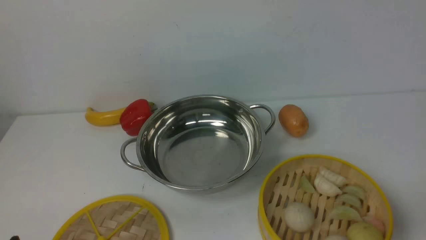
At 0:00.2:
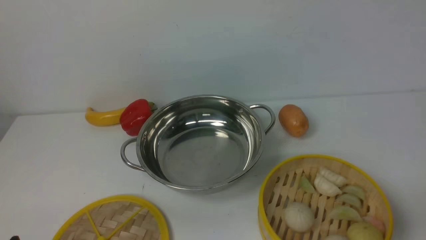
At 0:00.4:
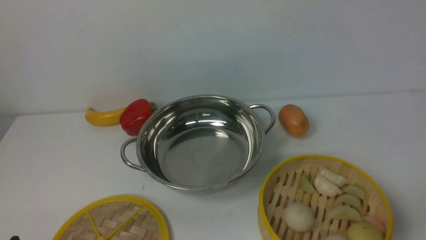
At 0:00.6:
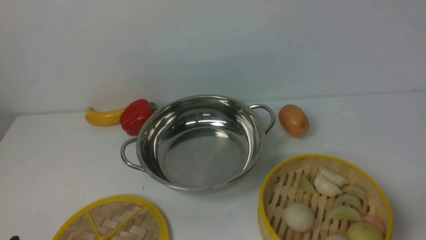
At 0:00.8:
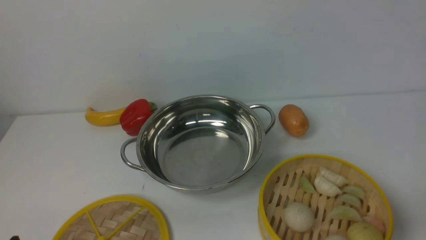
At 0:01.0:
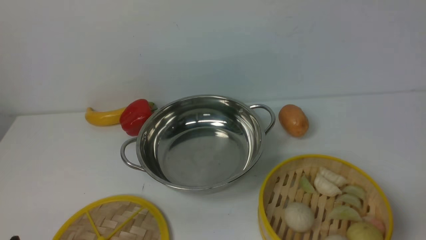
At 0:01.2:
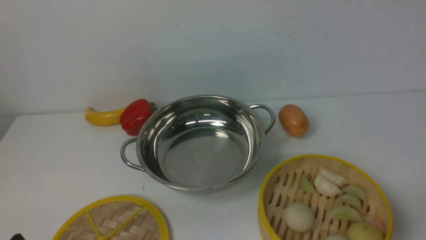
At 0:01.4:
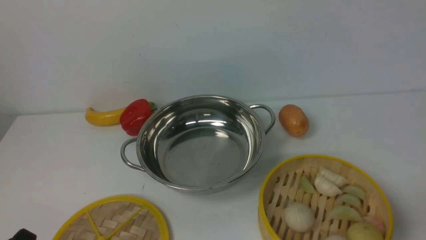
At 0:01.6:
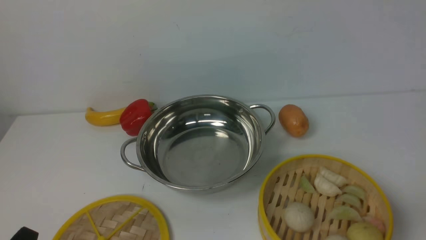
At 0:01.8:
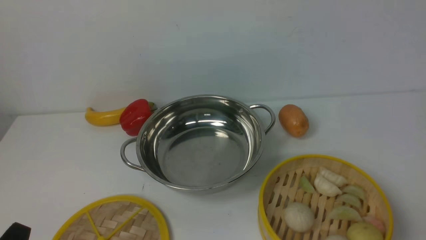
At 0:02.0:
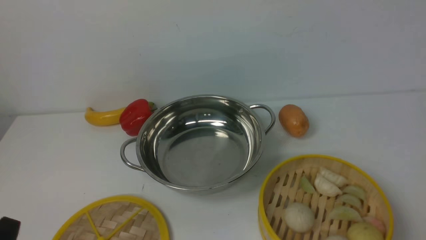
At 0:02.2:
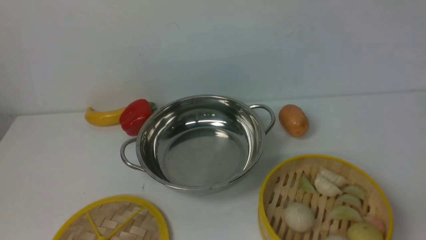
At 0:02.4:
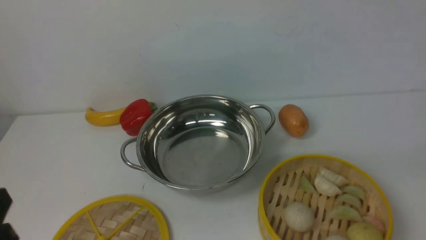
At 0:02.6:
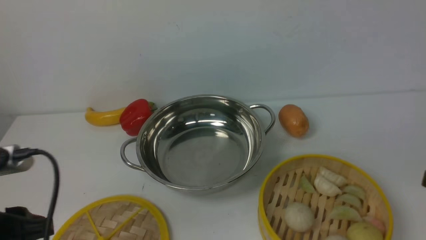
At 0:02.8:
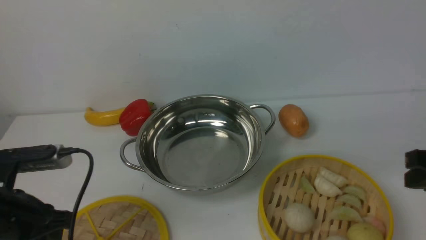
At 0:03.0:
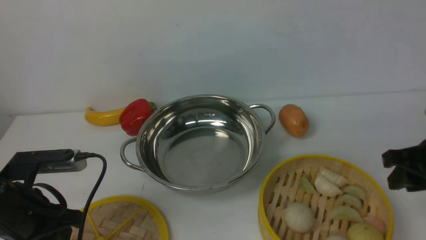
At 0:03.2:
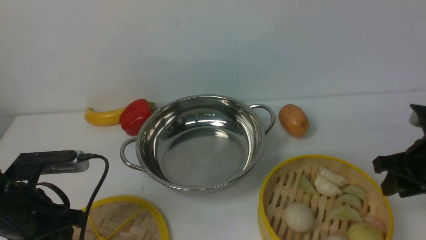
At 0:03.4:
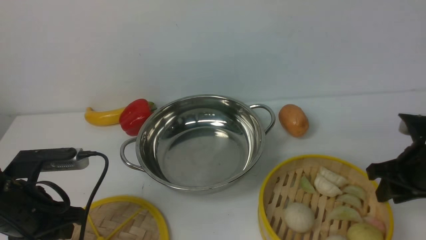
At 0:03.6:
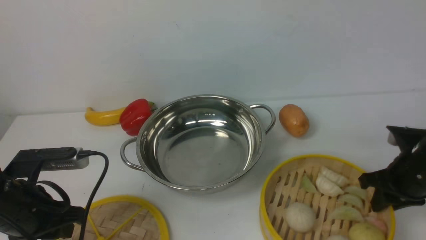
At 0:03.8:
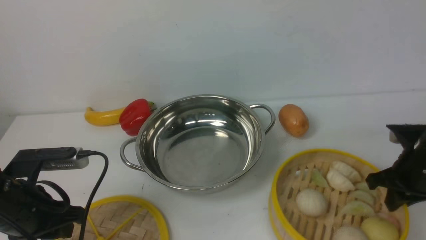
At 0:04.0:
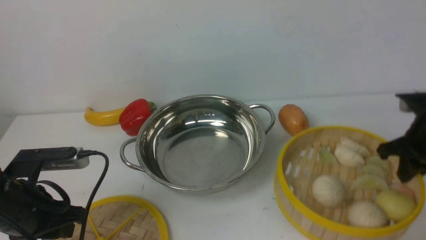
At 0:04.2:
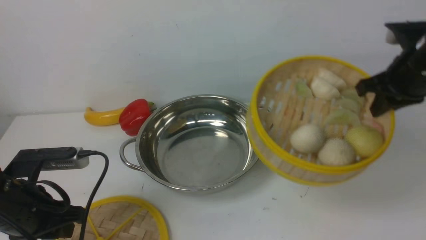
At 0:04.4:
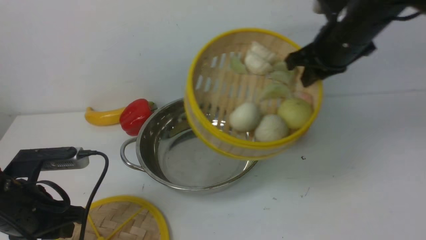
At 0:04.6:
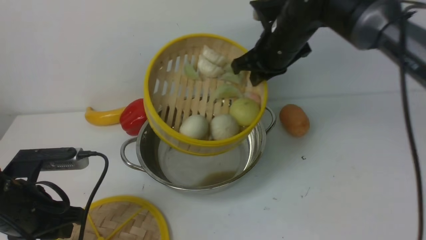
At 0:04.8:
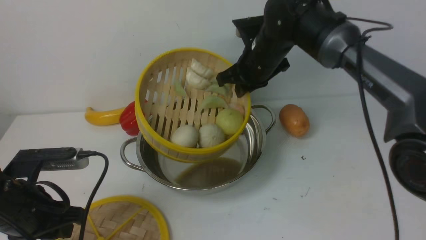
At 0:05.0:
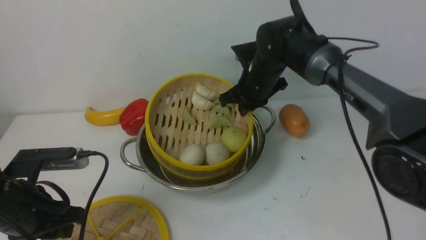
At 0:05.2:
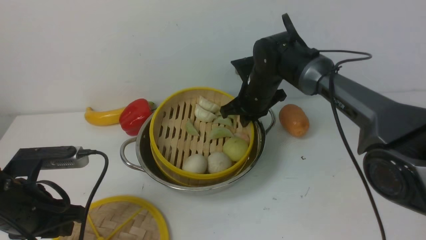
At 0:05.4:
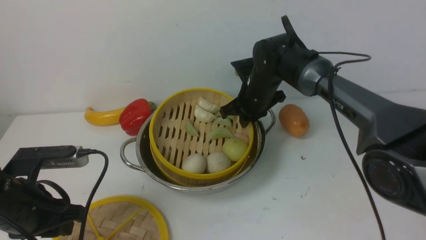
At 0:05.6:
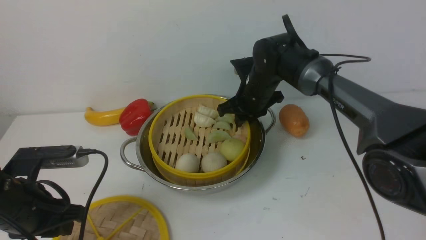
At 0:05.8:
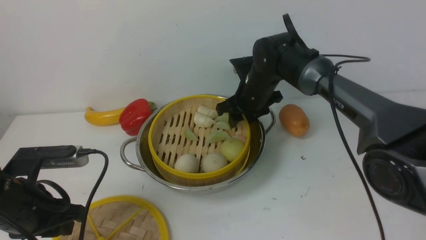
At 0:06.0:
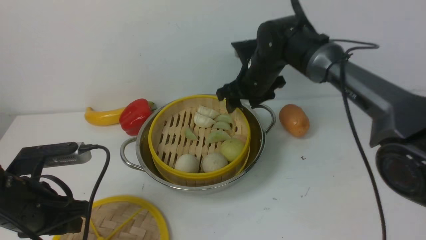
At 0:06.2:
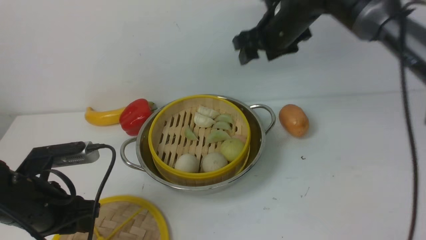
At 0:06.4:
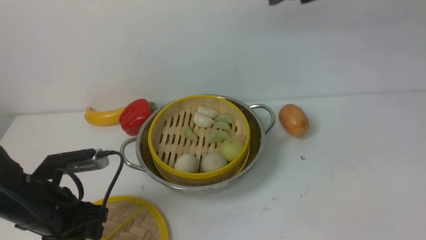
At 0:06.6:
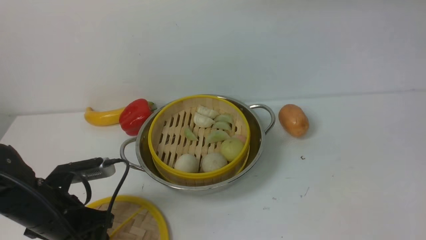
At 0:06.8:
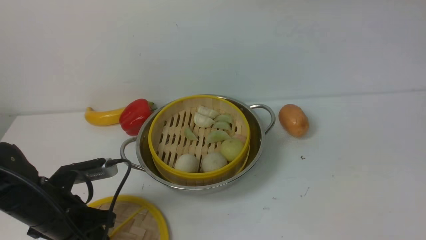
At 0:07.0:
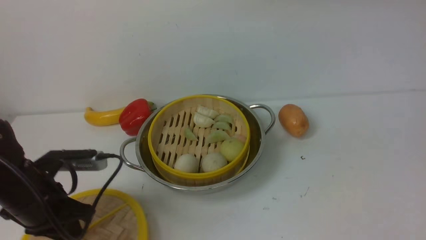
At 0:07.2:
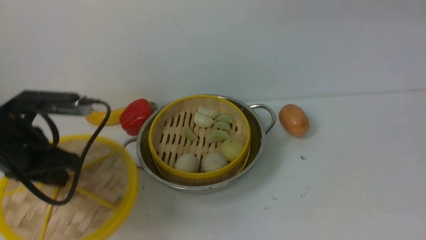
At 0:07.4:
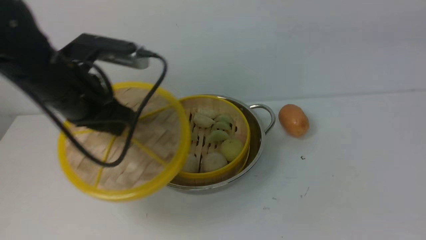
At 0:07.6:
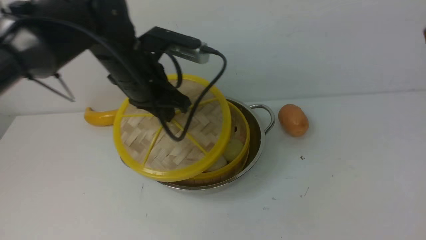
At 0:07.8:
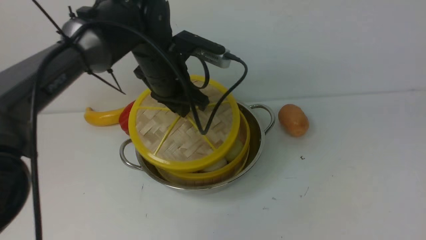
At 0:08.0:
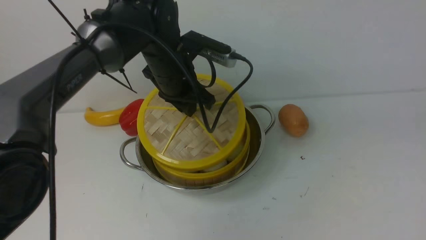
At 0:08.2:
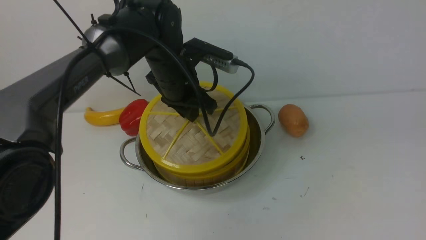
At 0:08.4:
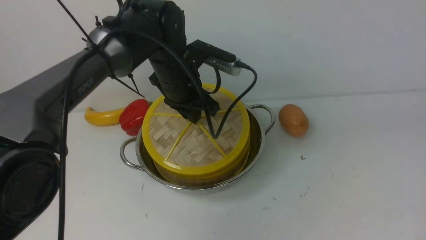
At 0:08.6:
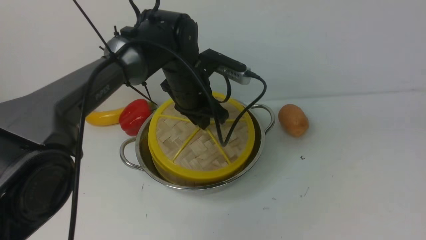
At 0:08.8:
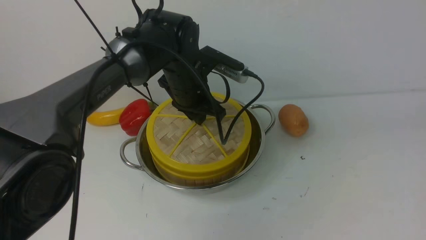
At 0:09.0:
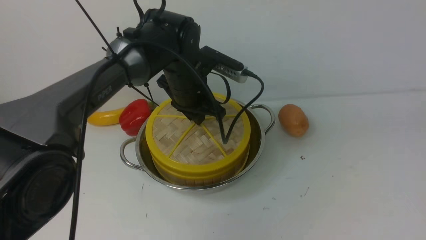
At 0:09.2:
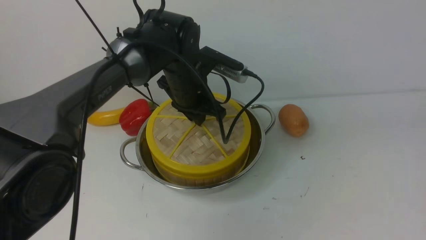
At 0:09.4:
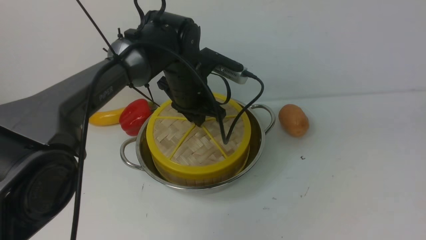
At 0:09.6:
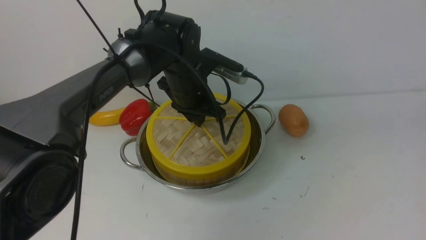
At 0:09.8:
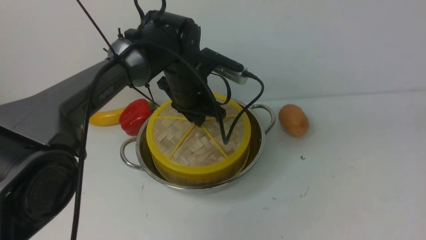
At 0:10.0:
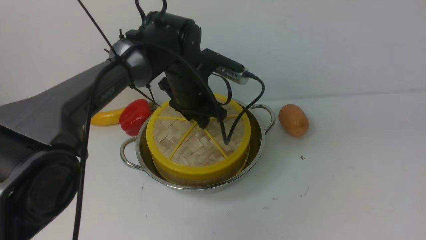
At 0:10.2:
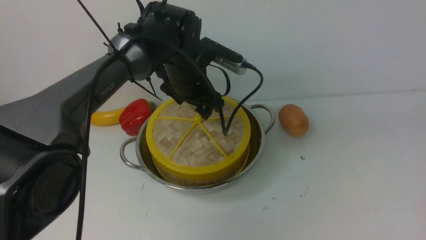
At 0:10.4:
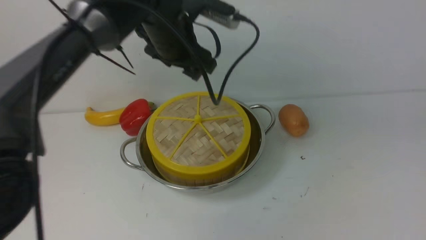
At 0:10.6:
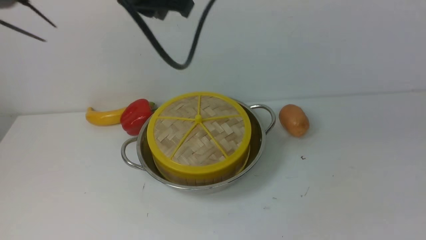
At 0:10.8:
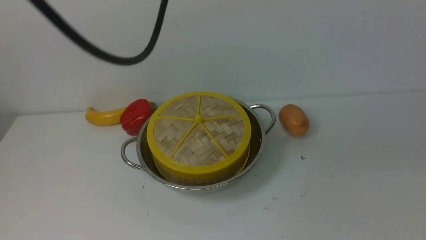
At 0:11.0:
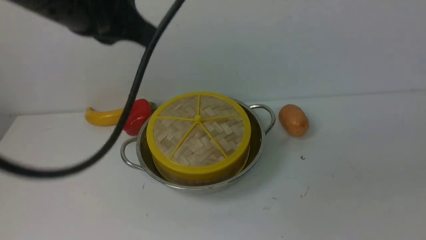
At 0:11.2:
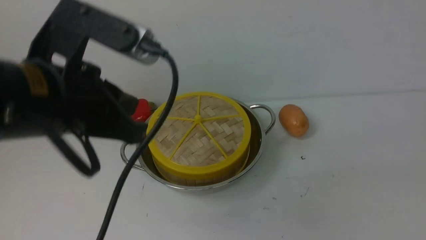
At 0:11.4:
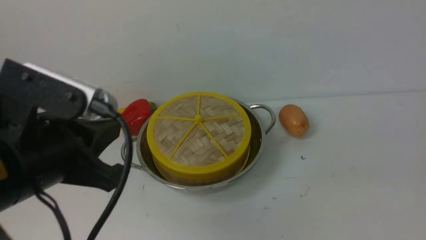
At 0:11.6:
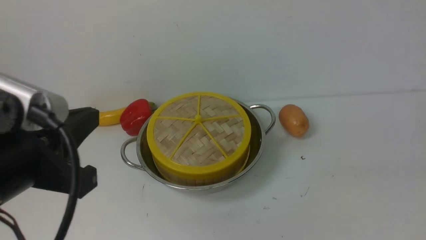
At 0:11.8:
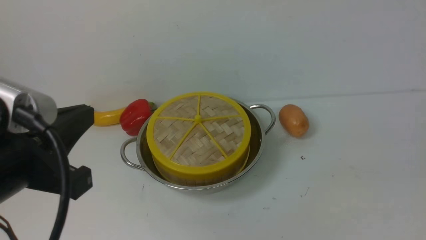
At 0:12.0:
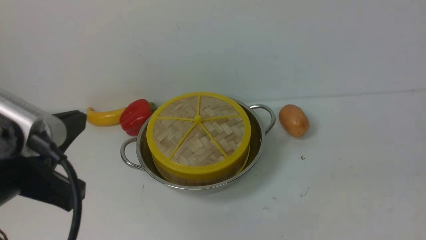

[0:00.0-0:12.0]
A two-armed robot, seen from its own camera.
Task of the whole recording: place the steamer in the pot on the white table, and put the lid on the steamer.
Step, 0:00.0 to 0:04.0: use the right arm to lift the steamer closest to it.
Step, 0:04.4 to 0:06.2: use the right arm to put the steamer into the iron steamer pot in the middle.
Step, 0:06.6 to 0:07.0: use the left arm to lift the lid of the steamer.
Step, 0:07.2 to 0:10.4: use the left arm to place the steamer lid on the steamer.
0:01.6 to 0:03.0: Both grippers move forward, about 15 cm.
0:03.0 to 0:04.4: The right gripper moves forward, to the left and upward, roughly 20 cm, and closes up.
0:04.4 to 0:06.0: The right gripper goes about 10 cm to the left, downward and forward, and opens up.
0:06.0 to 0:07.6: The right gripper goes roughly 40 cm backward, upward and to the right, while the left gripper shifts roughly 25 cm forward, to the right and upward.
0:07.6 to 0:09.0: The left gripper goes approximately 10 cm downward, to the right and forward. Meanwhile the right gripper heads backward, covering about 10 cm.
0:09.0 to 0:10.4: The left gripper is displaced upward by about 10 cm, and opens up.
0:10.4 to 0:12.0: The right gripper moves downward, some 10 cm, and closes up. The left gripper heads backward and to the left, covering about 30 cm, and closes.

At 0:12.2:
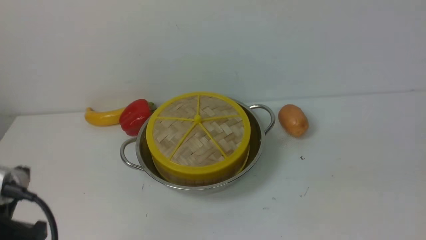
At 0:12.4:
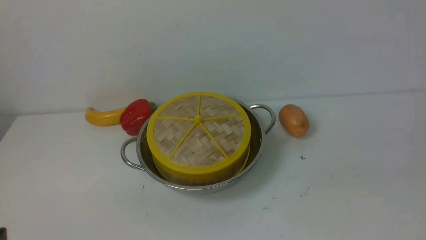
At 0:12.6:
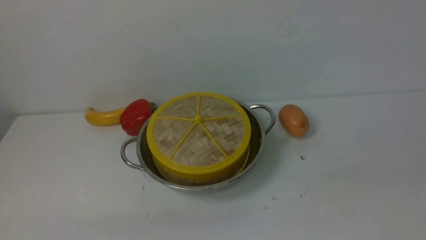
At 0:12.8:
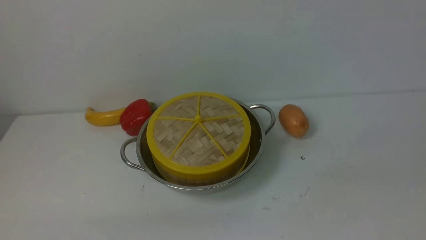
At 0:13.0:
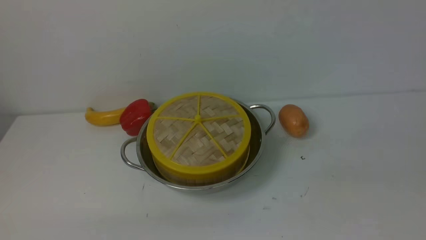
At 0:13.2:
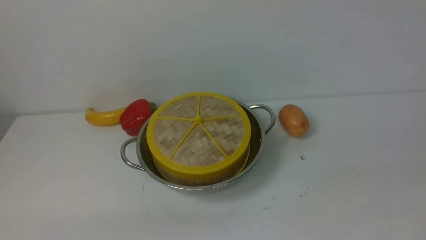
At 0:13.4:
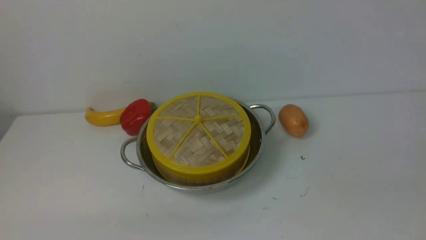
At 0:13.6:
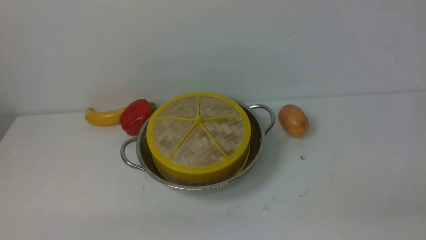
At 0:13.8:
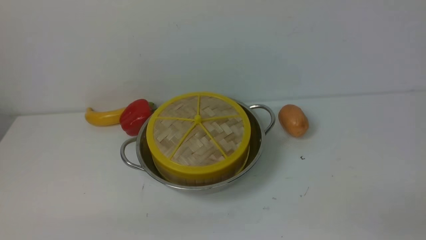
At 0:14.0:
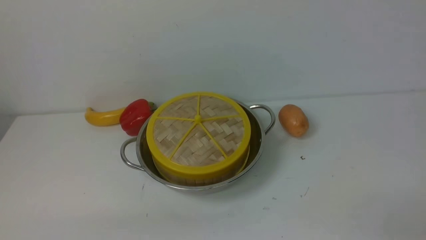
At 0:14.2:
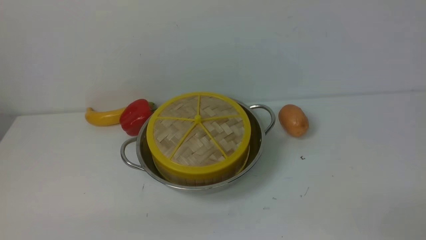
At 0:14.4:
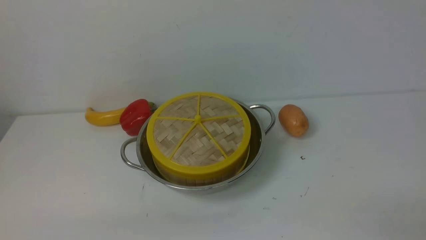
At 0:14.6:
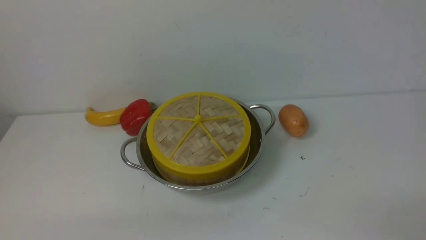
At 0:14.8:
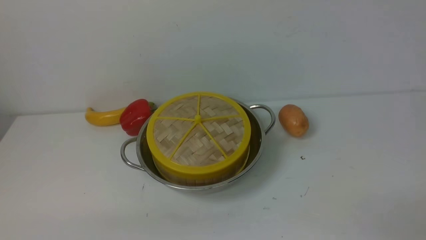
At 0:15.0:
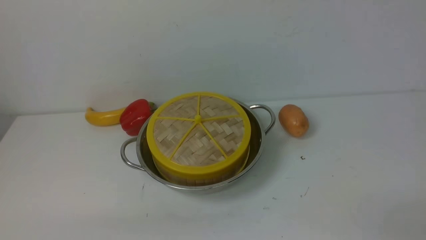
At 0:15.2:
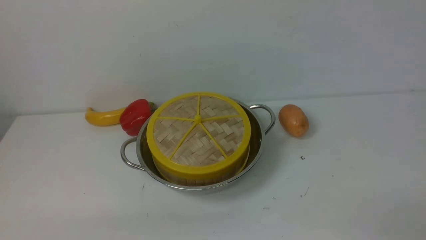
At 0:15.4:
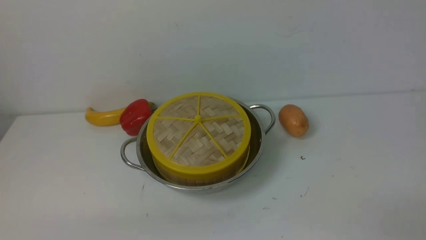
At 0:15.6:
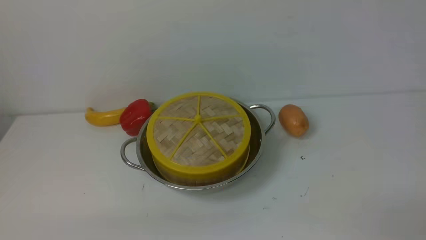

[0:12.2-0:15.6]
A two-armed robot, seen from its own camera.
Task of the whole recording: place the steamer in the pot on the white table, and put the lid on the steamer.
0:12.2 to 0:13.8: The left gripper shifts approximately 10 cm downward.

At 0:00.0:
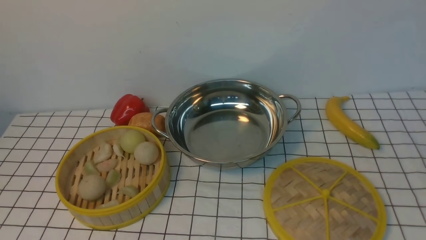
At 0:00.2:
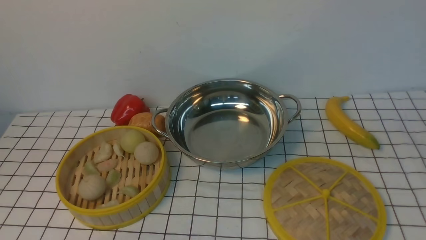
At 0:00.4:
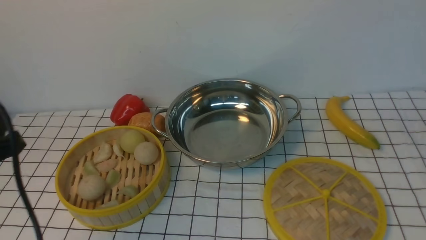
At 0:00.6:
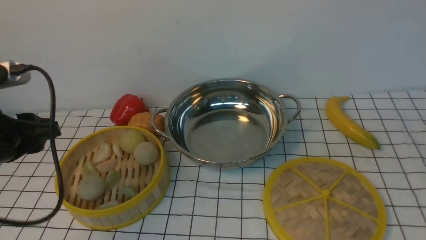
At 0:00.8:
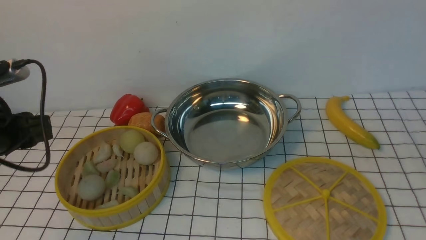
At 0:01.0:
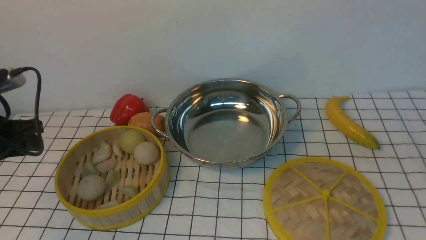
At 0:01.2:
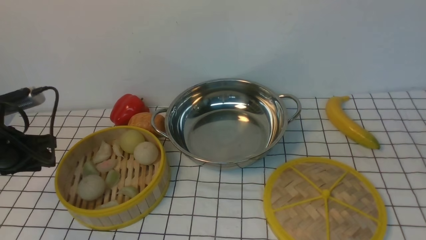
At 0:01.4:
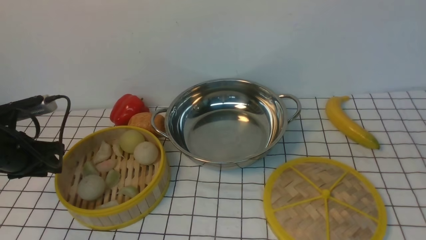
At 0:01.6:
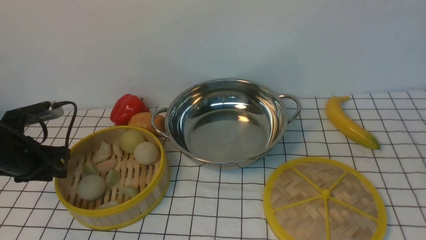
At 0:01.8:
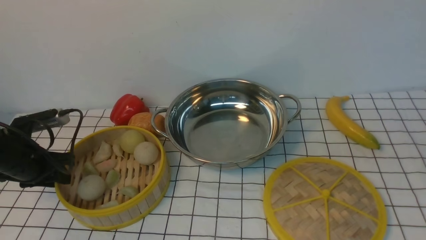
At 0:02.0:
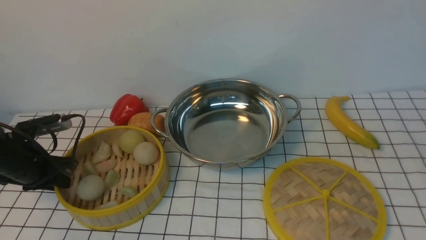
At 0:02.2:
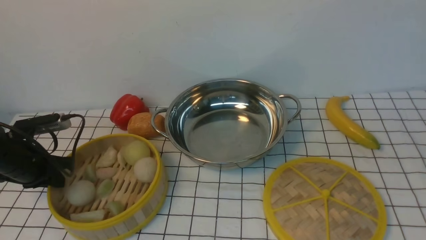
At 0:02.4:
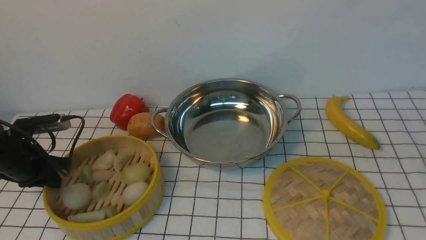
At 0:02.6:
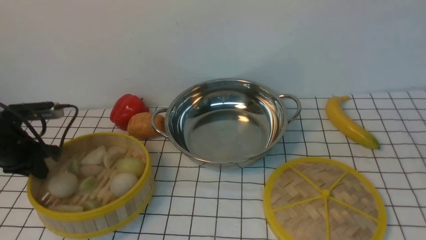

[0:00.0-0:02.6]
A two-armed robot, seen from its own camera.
Task of the whole recording: place the steamer in the pot on the white tablecloth, and put the lid on the steamer.
Step, 0:00.0 to 0:02.6: use the left arm to lift the steamer closest to it.
0:00.0 to 0:01.2: The left gripper is displaced forward by roughly 25 cm.
0:01.2 to 0:02.6: The left gripper closes up.
